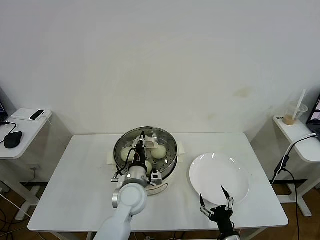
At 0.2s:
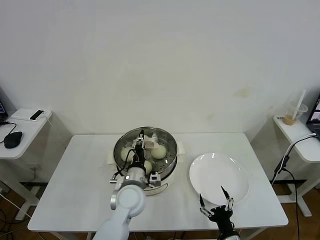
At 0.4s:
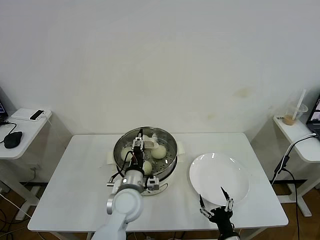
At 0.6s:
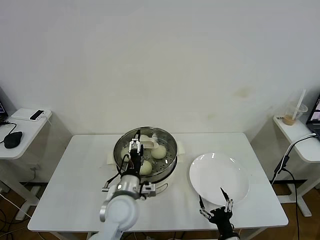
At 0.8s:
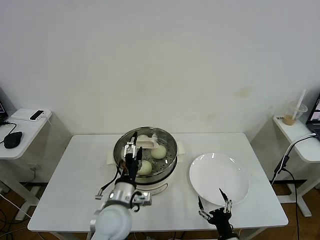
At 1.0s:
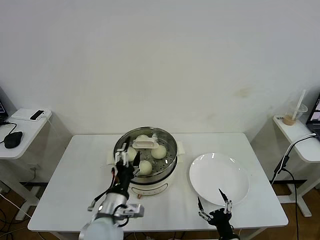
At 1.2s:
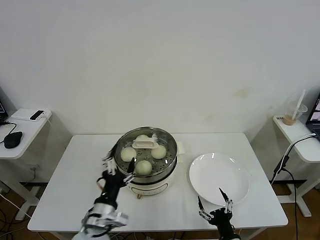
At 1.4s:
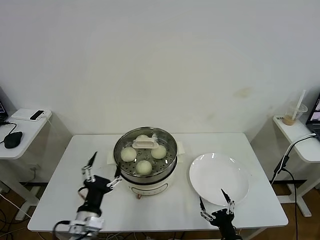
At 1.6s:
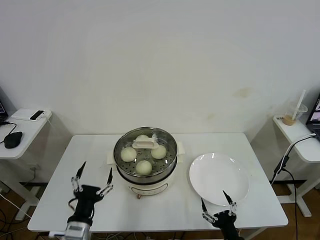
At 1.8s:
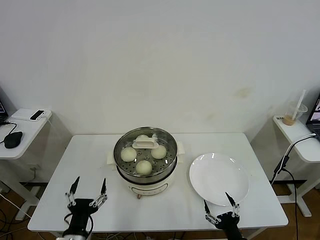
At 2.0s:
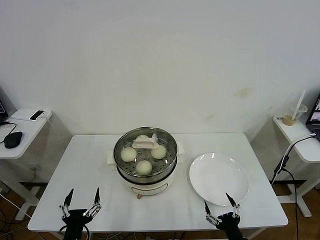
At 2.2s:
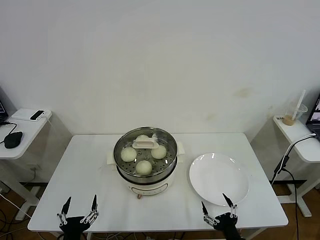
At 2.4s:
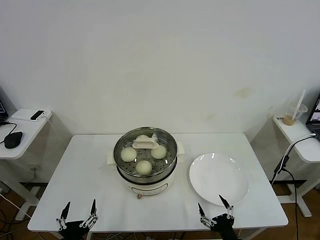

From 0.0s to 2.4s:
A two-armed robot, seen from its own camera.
Task of the whole recording: take steamed baozi put them in steamer then cover it.
From 0.0s to 1.2s: The left gripper shifts approximately 15 cm backward and to the left, and opens its fingers.
From 1.2s to 2.4s: The left gripper shifts roughly 20 cm backward, to the left and downward.

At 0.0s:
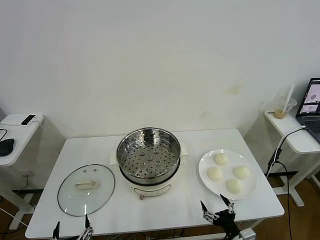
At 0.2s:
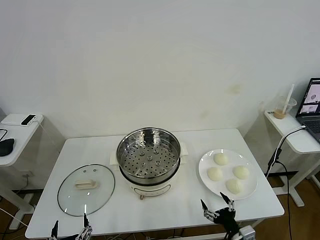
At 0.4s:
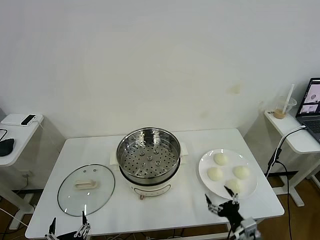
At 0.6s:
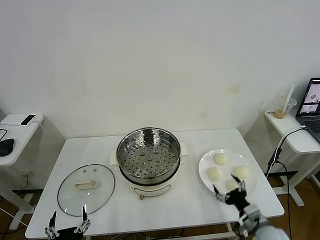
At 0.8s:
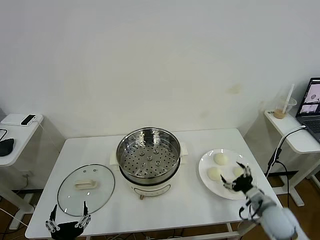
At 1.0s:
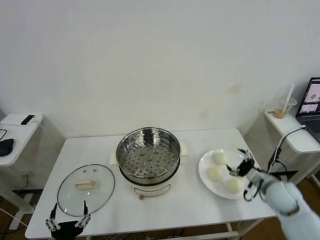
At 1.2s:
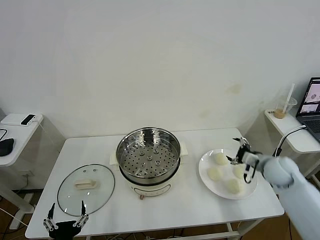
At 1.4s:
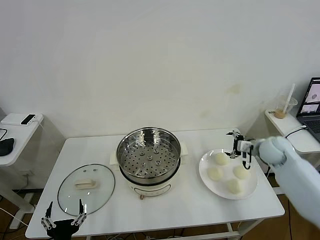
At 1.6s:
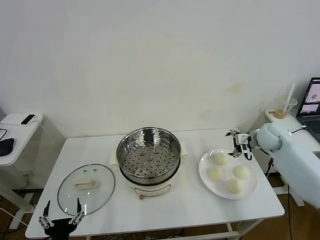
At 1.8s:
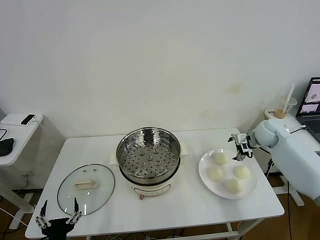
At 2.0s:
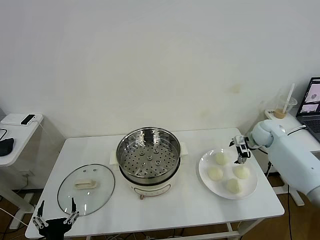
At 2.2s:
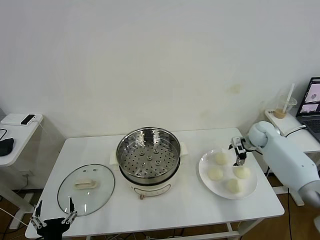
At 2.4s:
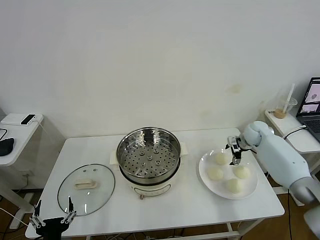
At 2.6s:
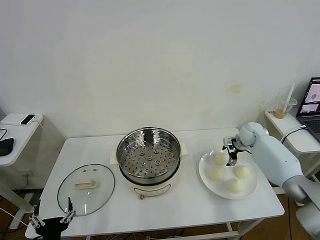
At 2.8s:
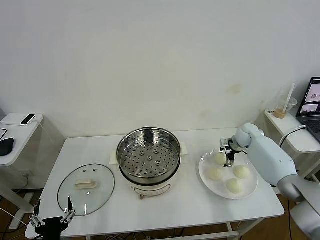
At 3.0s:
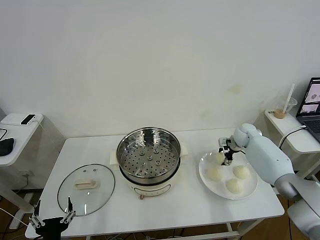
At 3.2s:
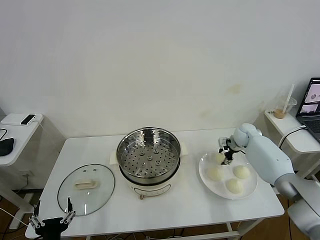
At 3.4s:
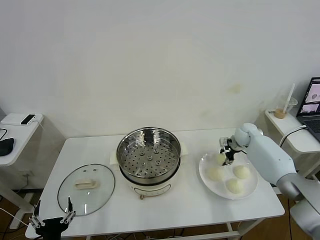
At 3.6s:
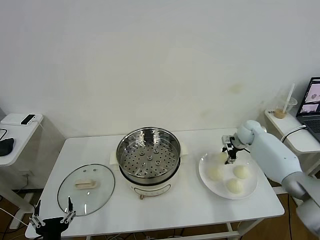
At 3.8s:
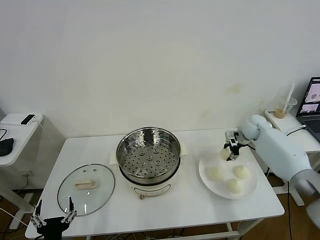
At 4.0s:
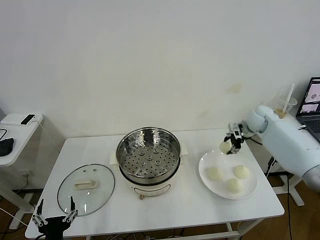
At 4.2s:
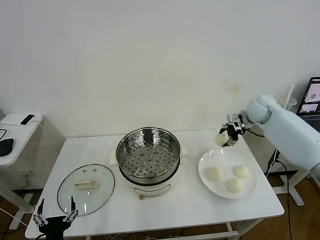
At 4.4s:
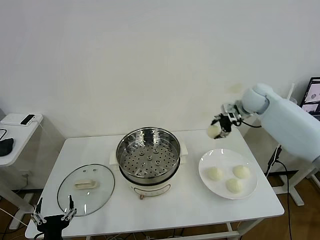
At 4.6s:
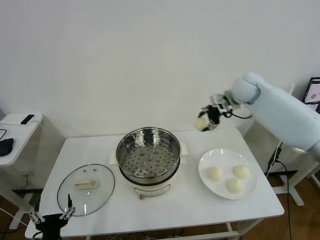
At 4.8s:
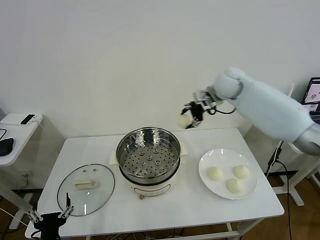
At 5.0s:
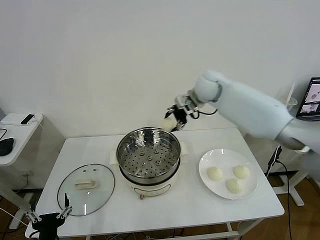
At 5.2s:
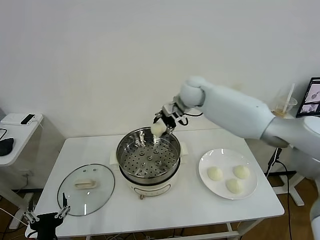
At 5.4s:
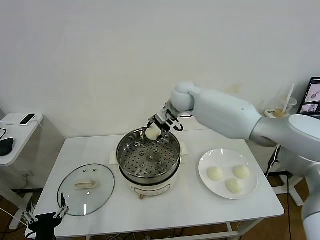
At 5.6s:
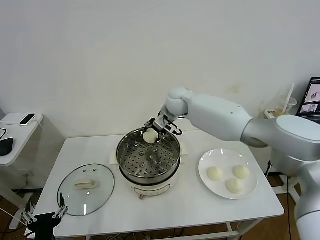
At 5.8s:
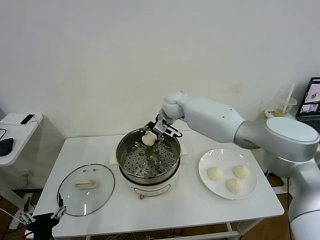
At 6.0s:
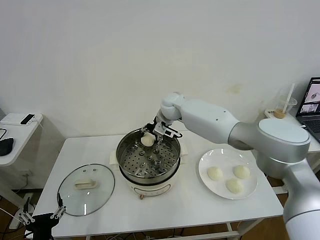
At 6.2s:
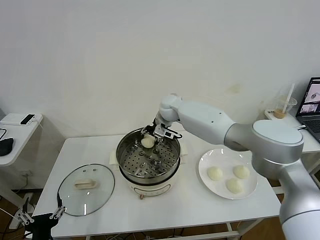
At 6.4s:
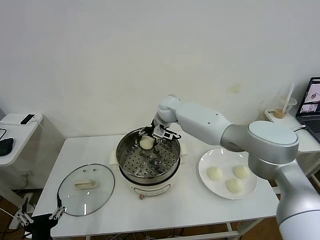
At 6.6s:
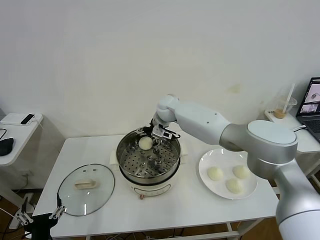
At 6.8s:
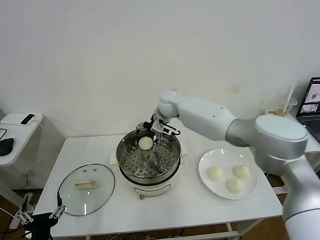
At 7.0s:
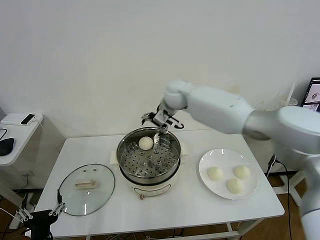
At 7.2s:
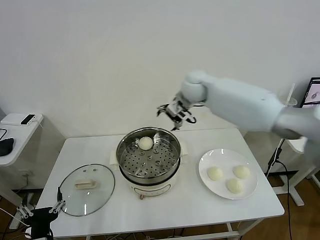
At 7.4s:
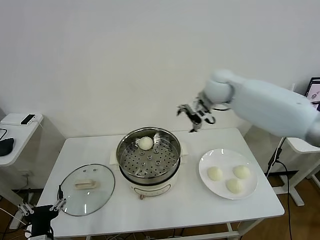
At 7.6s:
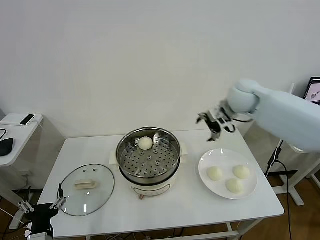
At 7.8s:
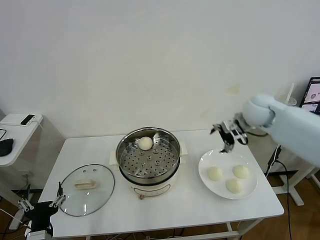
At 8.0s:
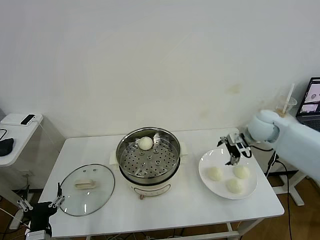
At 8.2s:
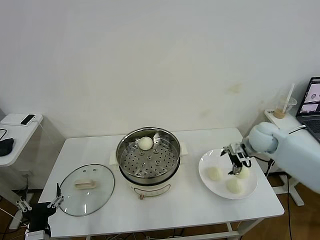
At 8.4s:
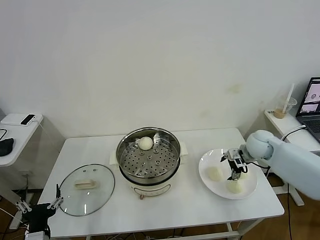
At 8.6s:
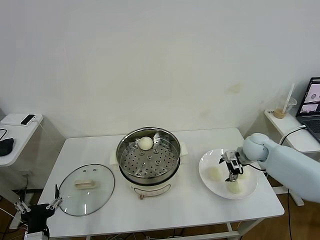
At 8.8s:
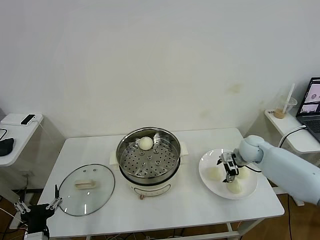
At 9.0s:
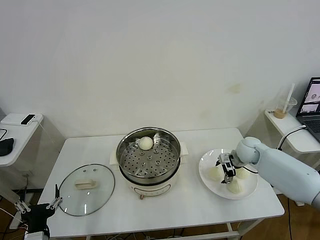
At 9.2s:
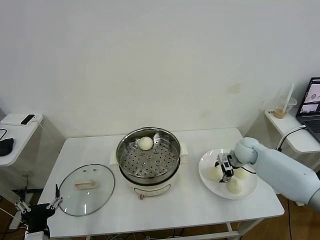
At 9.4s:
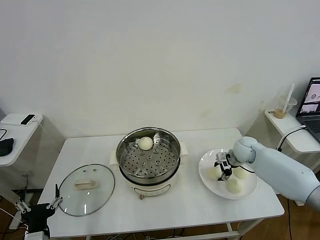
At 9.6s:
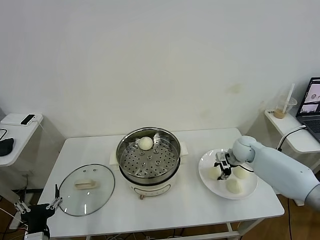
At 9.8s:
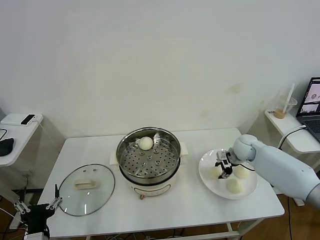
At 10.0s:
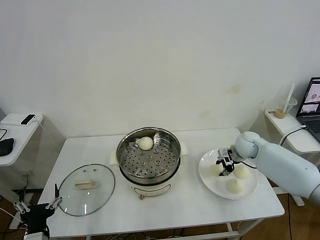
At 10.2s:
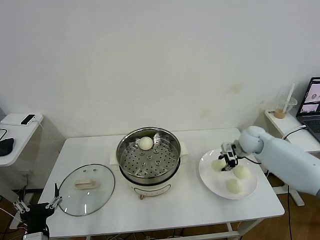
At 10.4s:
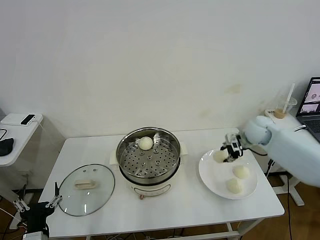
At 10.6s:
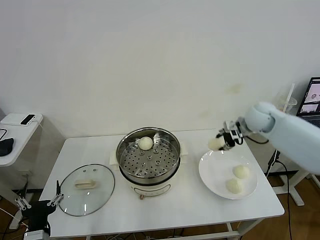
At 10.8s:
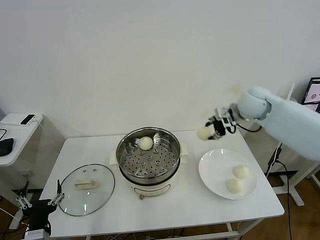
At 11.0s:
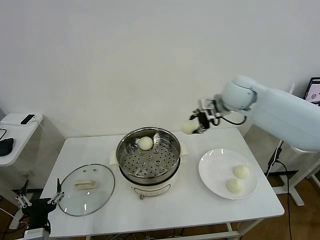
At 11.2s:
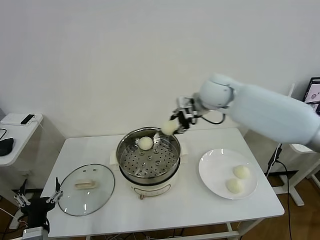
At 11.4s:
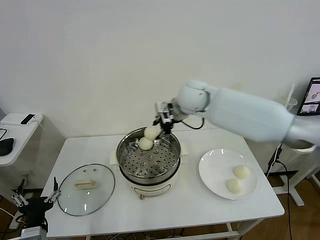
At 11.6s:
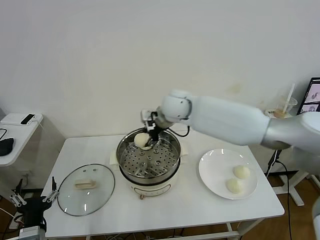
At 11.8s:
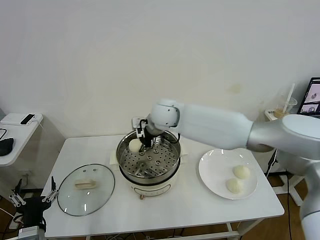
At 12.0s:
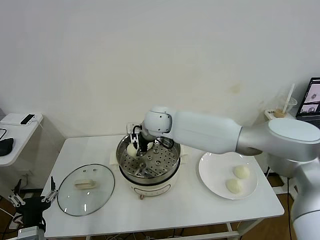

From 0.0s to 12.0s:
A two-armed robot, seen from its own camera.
Task of the whole recording: take steamed baozi put them in steamer then cover it.
Step, from 0.0s to 3.2s: Grasp the baozi in the plate with right gripper.
Step, from 3.4s to 6.6s: Place the baozi on the steamer with right gripper.
Step, from 7.0s to 9.6s: Grasp the baozi in the plate with right gripper.
From 1.6s to 3.0s: The right gripper goes some 10 cm downward and forward, and closes its fingers.
From 3.0s to 4.4s: The right gripper goes approximately 20 cm upward.
From 4.4s to 6.0s: The right gripper heads to the left, covering some 25 cm.
From 6.0s to 7.6s: The right gripper moves to the right, approximately 25 cm, and opens.
From 7.6s to 9.0s: The right gripper travels downward by approximately 20 cm.
From 9.0s to 10.4s: The right gripper moves upward, roughly 15 cm, and closes up.
From 10.4s to 12.0s: The right gripper goes approximately 35 cm to the left.

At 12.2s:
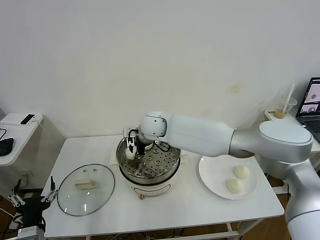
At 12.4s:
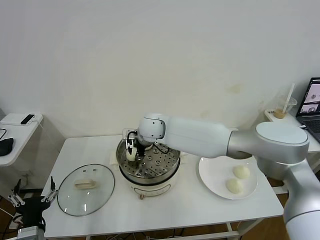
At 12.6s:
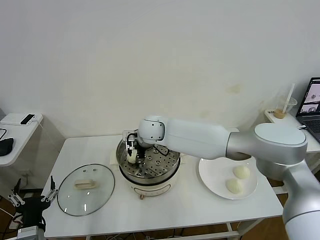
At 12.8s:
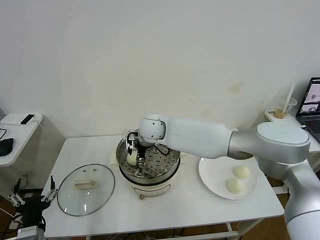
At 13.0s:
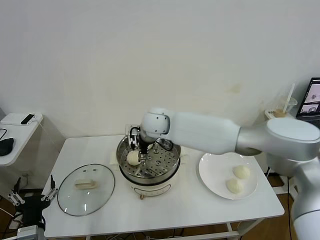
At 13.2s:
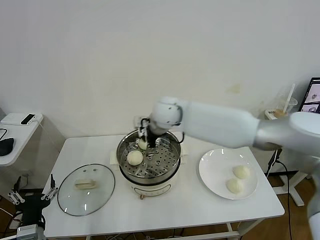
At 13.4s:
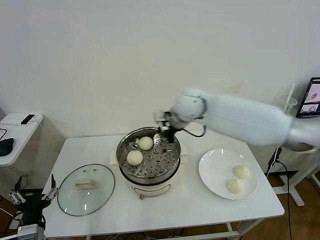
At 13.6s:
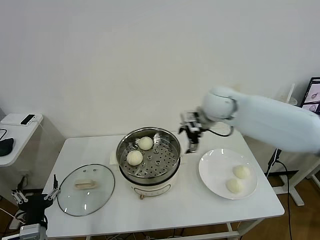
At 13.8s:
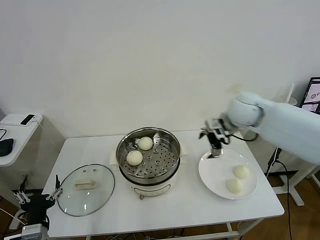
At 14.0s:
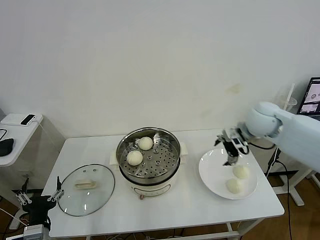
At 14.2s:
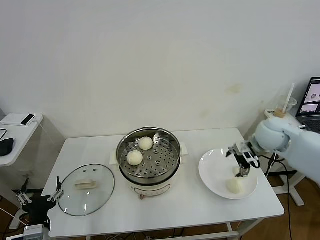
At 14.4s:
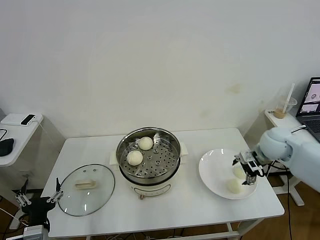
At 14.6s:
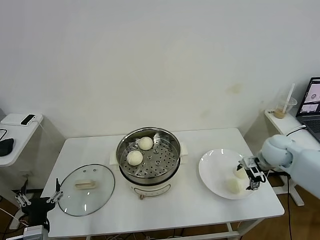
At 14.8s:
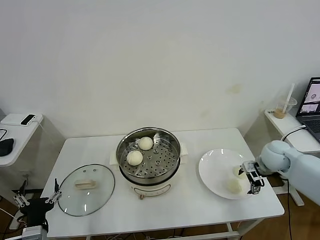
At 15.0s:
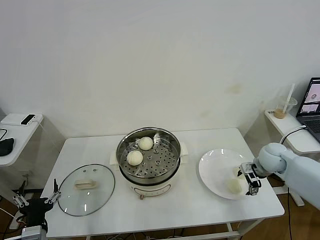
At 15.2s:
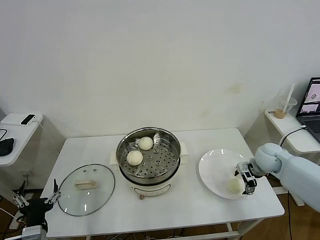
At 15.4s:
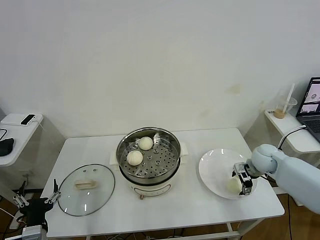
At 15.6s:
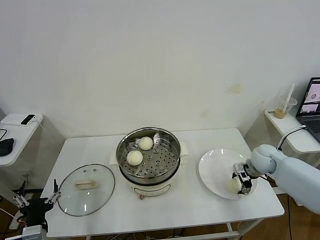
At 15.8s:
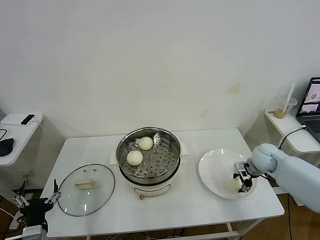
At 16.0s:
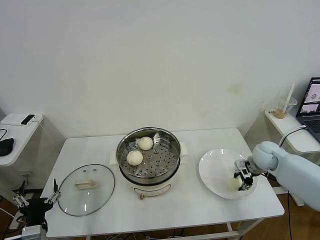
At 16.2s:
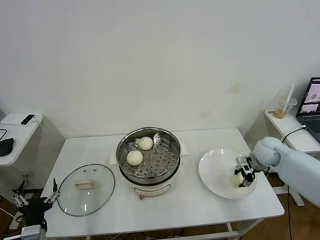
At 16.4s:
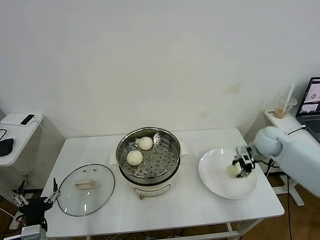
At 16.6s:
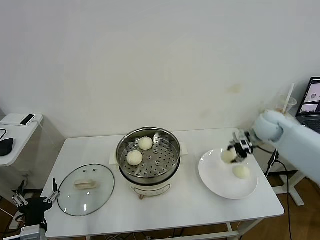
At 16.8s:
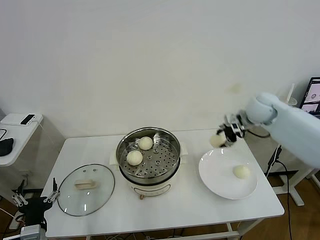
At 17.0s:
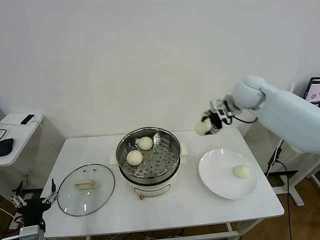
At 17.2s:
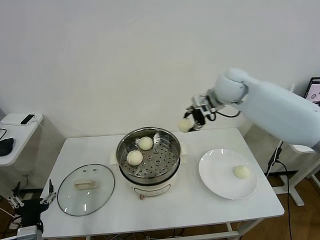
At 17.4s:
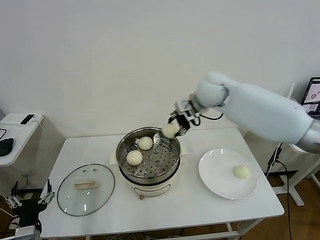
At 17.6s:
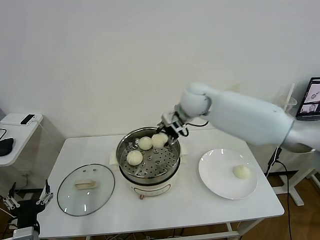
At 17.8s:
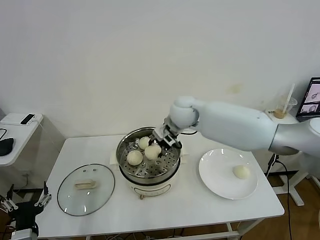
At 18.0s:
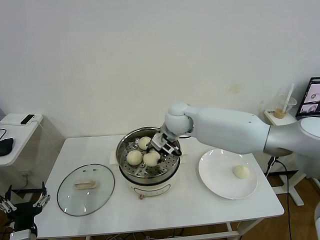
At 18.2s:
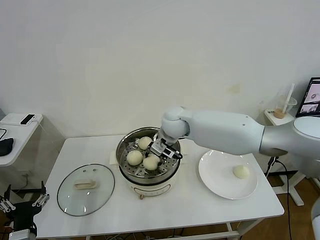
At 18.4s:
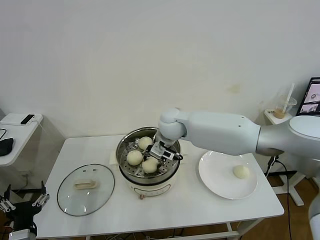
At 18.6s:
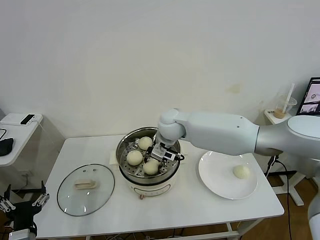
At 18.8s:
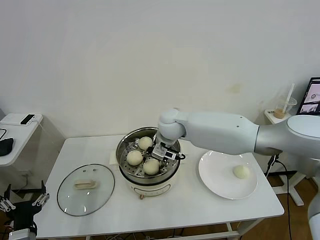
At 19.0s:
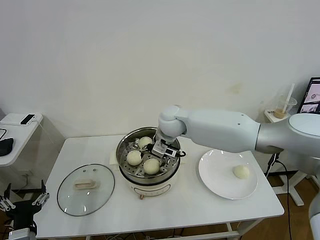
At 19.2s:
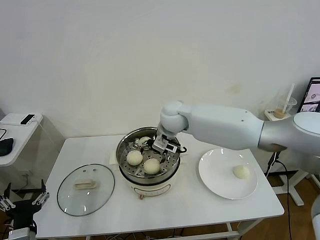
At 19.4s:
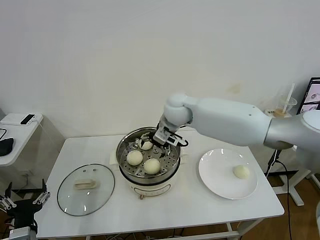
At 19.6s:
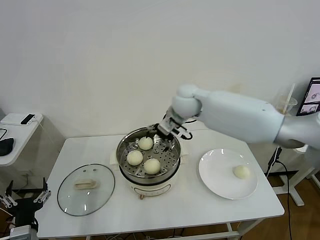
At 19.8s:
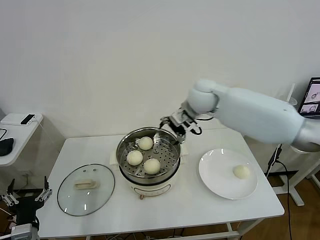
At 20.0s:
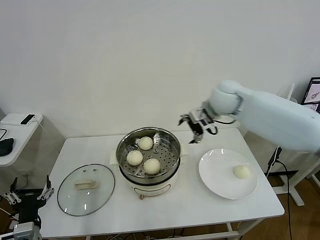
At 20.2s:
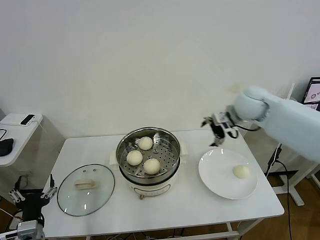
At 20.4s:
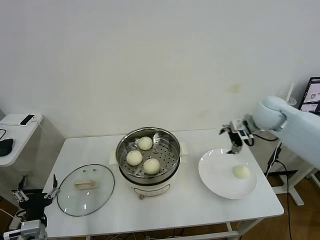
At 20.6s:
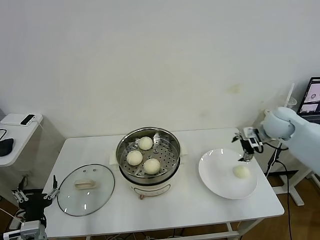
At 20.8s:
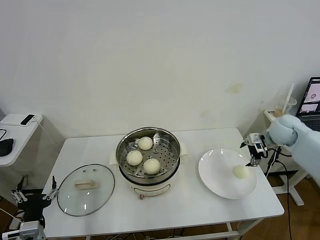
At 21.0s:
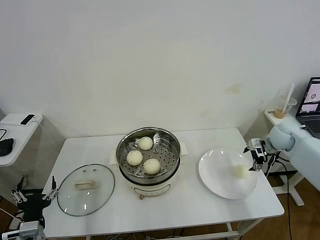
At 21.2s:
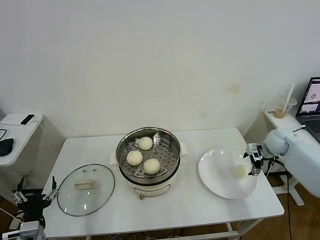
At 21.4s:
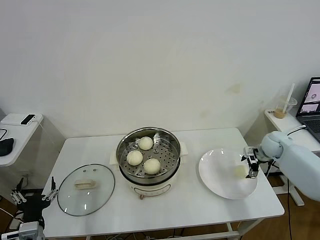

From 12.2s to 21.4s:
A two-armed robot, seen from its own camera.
Task of the whole recording: take steamed baozi put them in steamer then cover it.
Step, from 13.2s to 16.0s: Grasp the baozi in the plate with right gripper.
Step, from 16.2s to 19.2s: Place the baozi on the steamer with right gripper.
From 12.2s to 13.8s: The right gripper shifts roughly 30 cm to the right, and opens.
From 13.8s to 15.2s: The right gripper moves downward and to the right, approximately 20 cm.
From 15.2s to 16.8s: The right gripper moves upward, to the left and forward, about 20 cm, and closes up.
From 16.8s to 18.4s: The right gripper travels to the left by roughly 25 cm.
From 18.4s to 19.8s: The right gripper shifts some 15 cm to the right and upward, and opens its fingers.
From 19.8s to 21.4s: The right gripper is displaced to the right and downward by roughly 35 cm.
